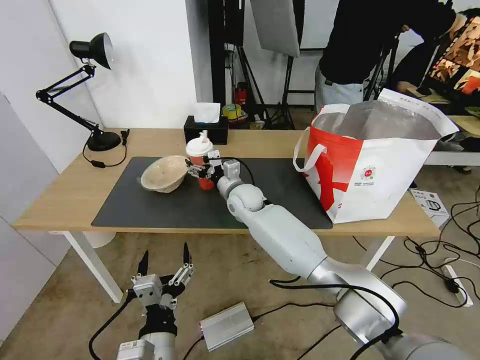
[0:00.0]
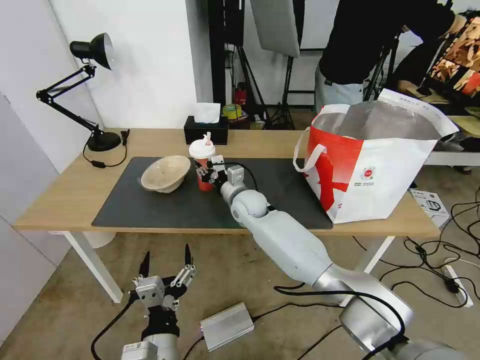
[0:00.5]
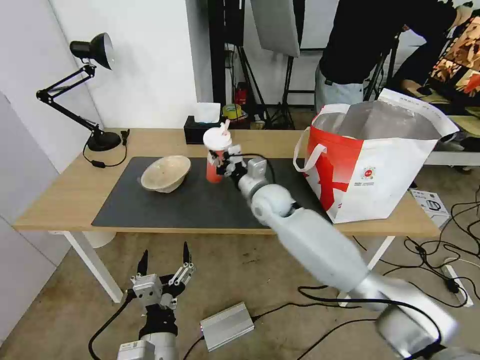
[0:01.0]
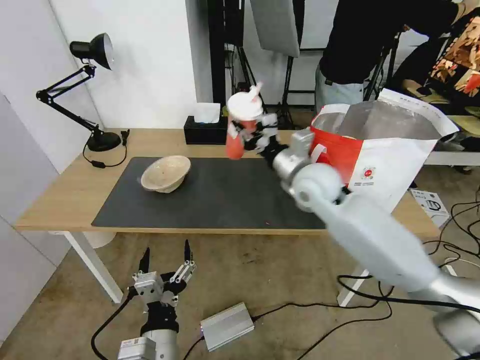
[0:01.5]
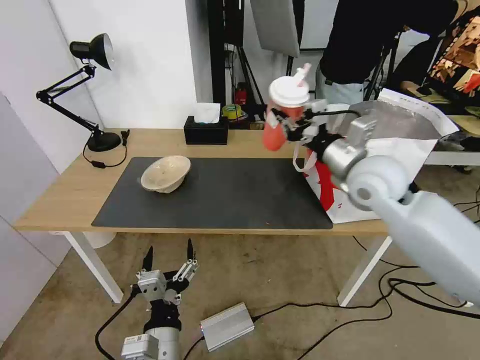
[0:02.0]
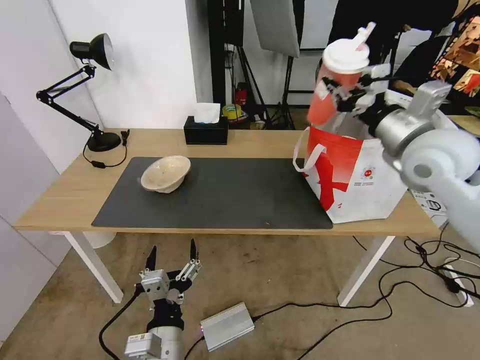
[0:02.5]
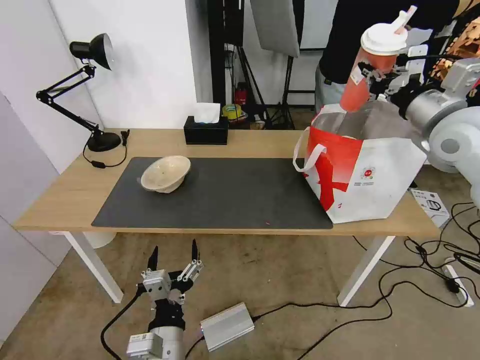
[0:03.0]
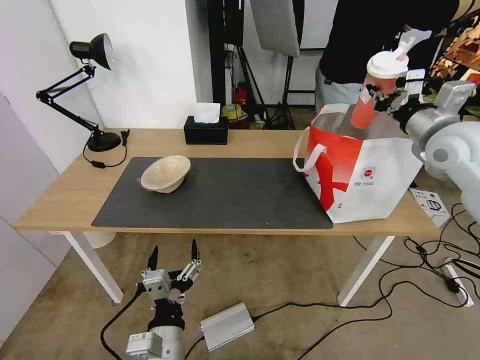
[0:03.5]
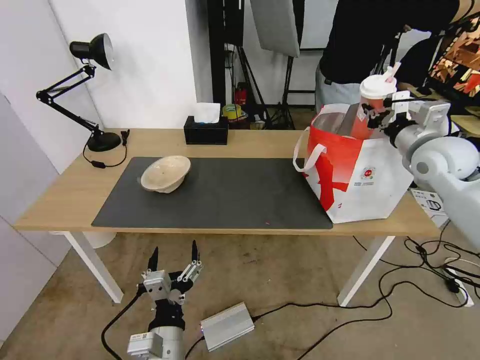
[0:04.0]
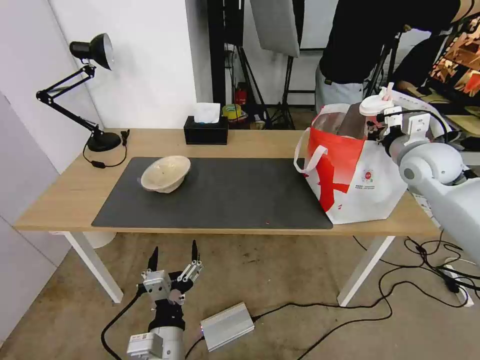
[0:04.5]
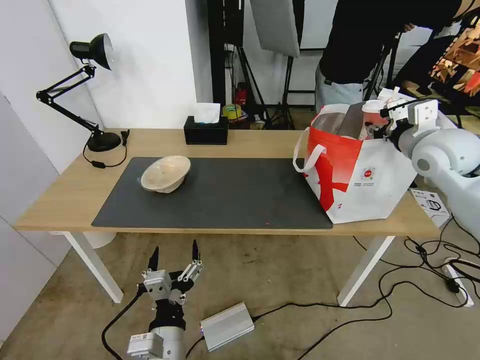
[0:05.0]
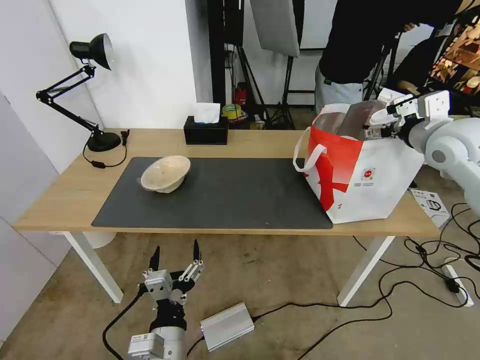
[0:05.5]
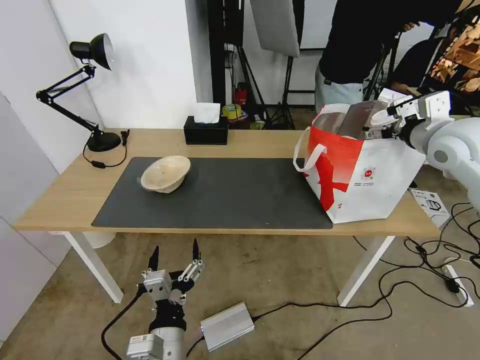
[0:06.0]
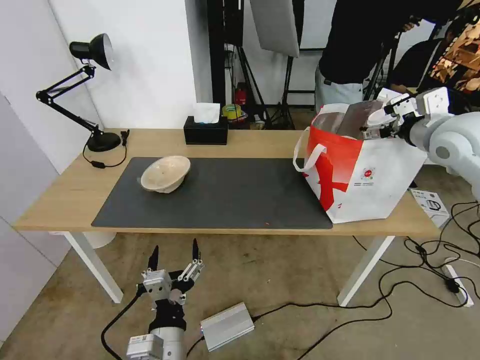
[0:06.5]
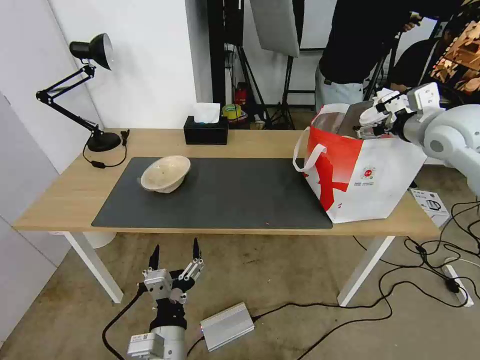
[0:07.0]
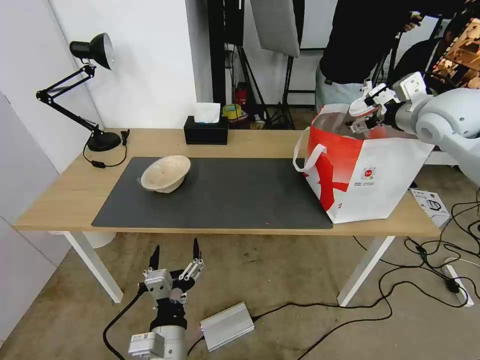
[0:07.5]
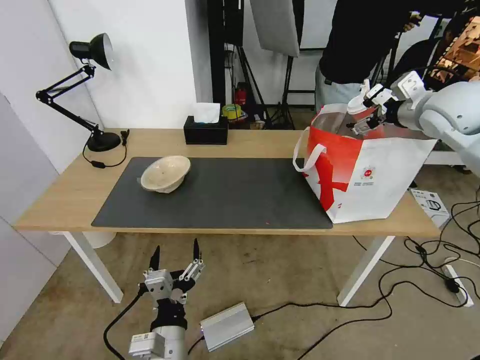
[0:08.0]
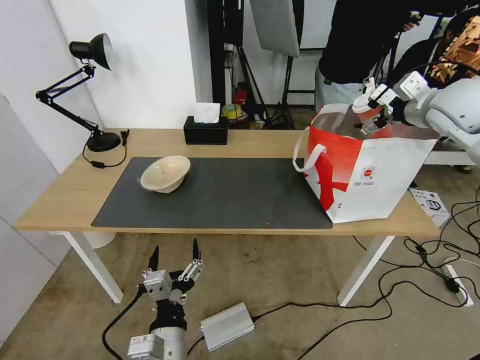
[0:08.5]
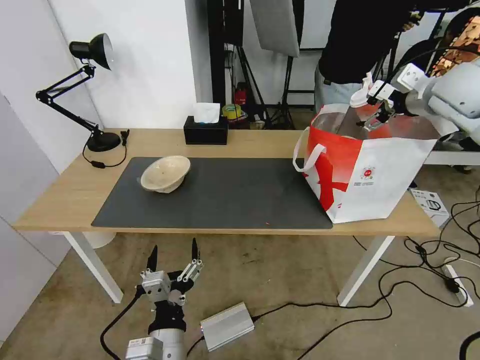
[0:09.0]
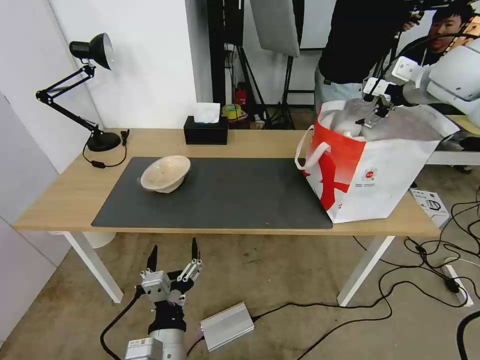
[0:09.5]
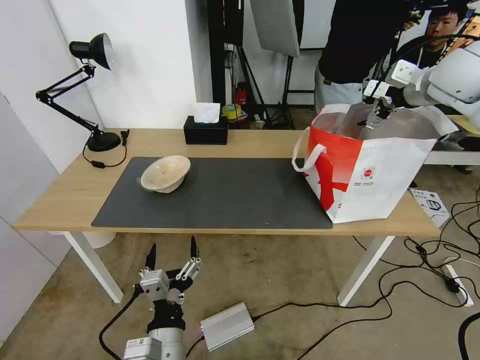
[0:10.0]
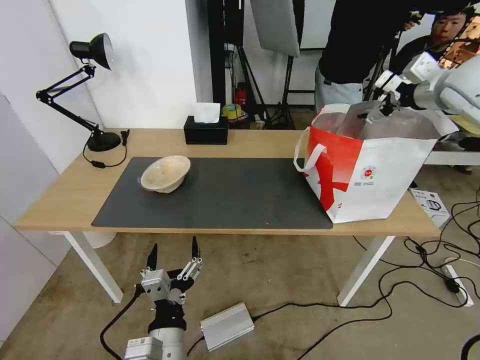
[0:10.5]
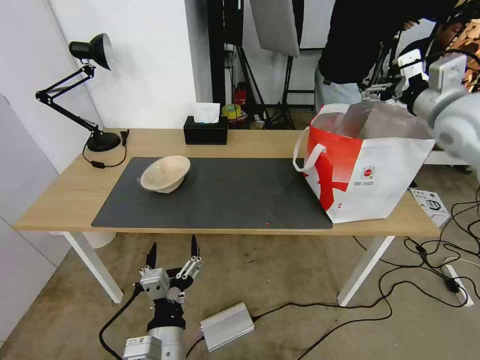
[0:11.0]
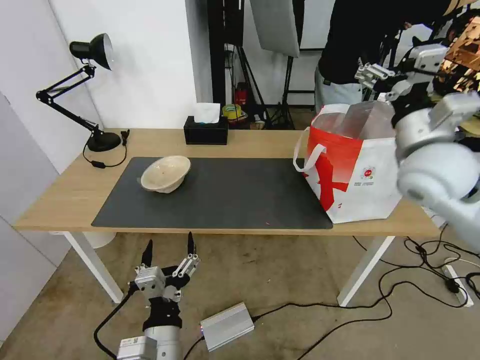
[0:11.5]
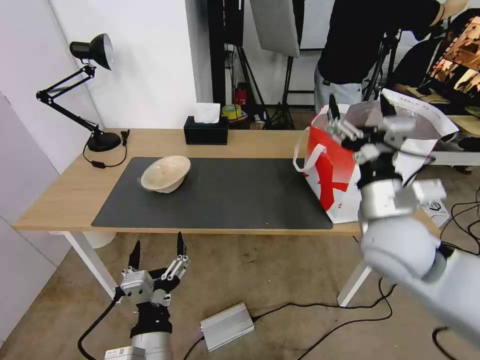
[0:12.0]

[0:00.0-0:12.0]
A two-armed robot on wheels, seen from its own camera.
Task of the whole recording: Pick up the trash from the table and place it into the takeout bag.
0:00.0 to 0:02.0: The right gripper heads to the right, upward and backward, covering roughly 30 cm, and closes its fingers.
0:02.0 to 0:04.0: The right gripper moves to the right, some 15 cm.
0:04.0 to 0:06.0: The right gripper heads upward, covering approximately 5 cm, and opens its fingers.
0:06.0 to 0:08.0: The right gripper travels forward by approximately 5 cm.
0:08.0 to 0:10.0: The right gripper moves some 5 cm.
0:10.0 to 0:12.0: The right gripper shifts roughly 35 cm backward, downward and to the left.

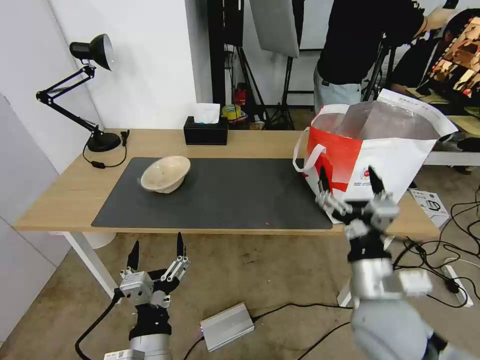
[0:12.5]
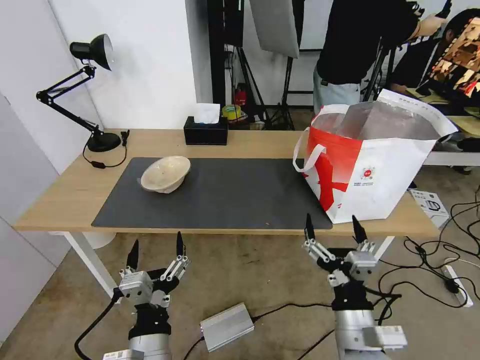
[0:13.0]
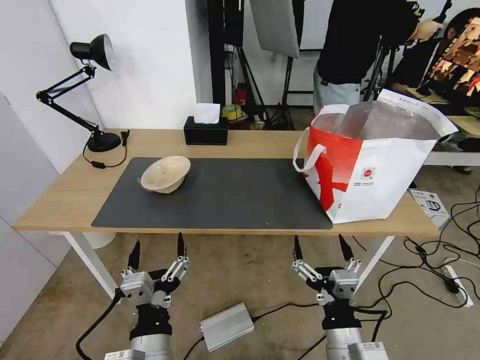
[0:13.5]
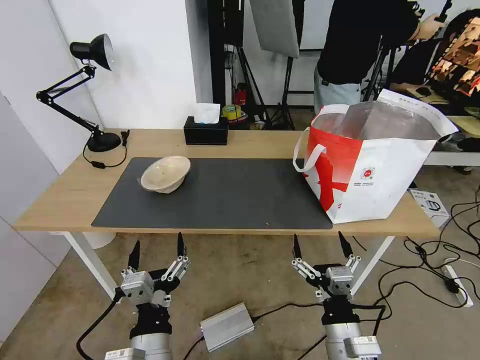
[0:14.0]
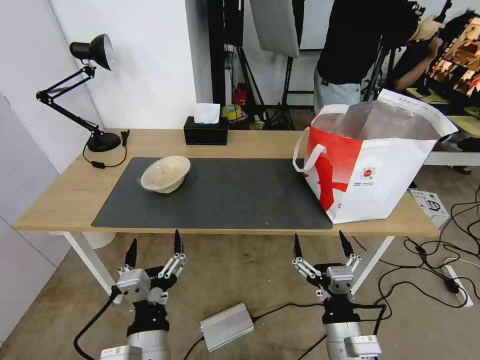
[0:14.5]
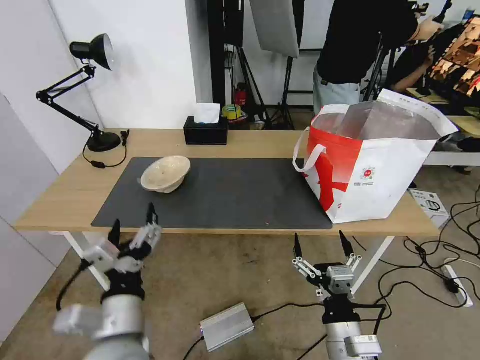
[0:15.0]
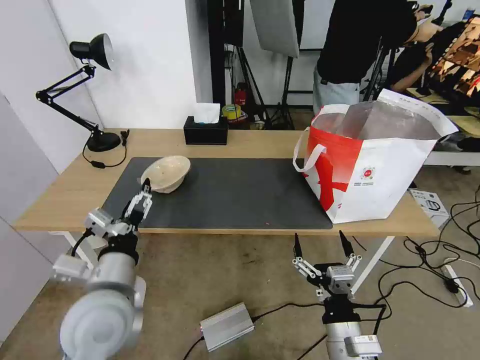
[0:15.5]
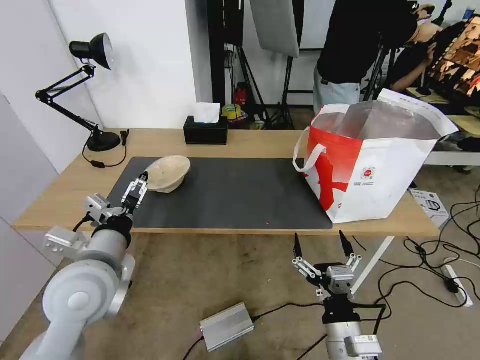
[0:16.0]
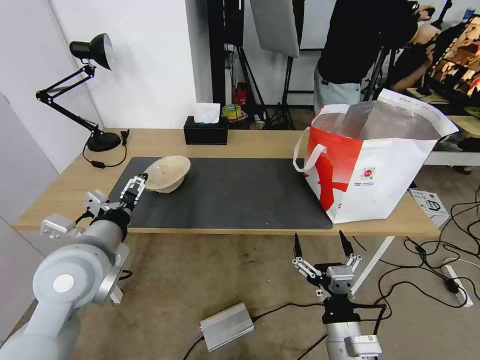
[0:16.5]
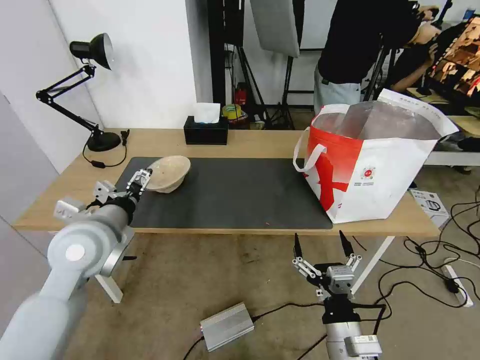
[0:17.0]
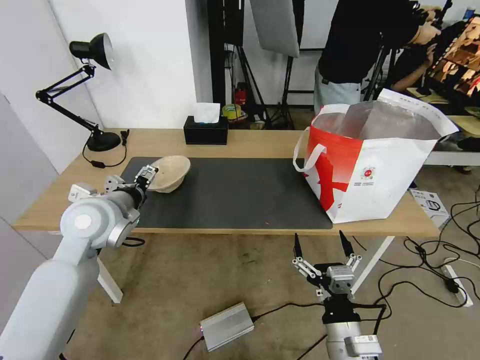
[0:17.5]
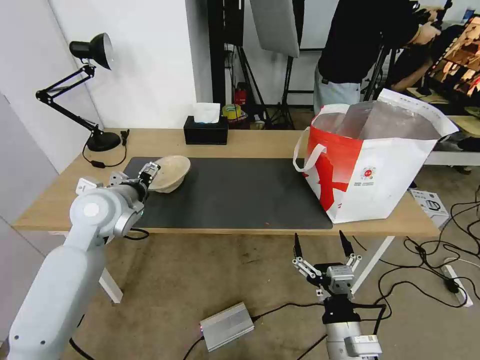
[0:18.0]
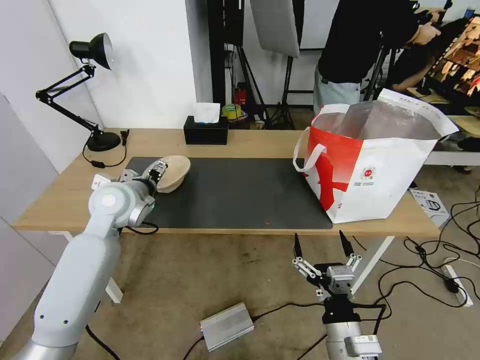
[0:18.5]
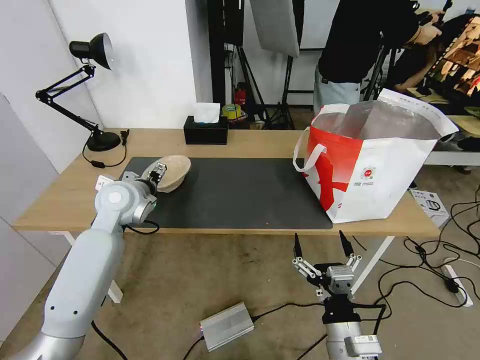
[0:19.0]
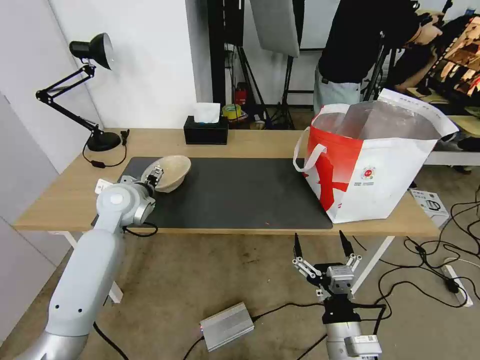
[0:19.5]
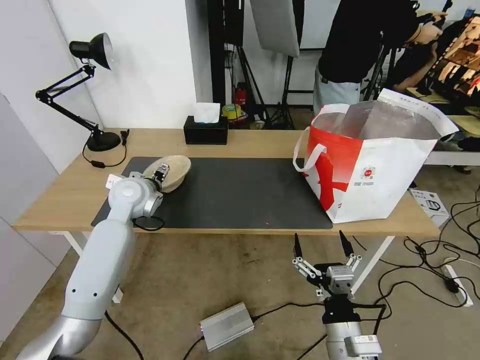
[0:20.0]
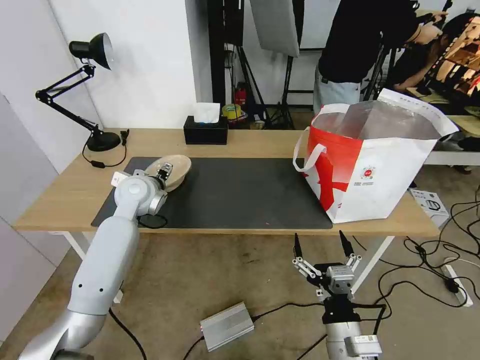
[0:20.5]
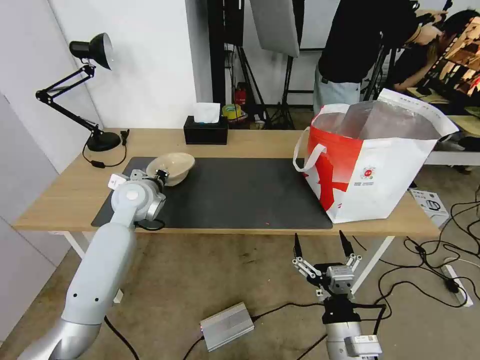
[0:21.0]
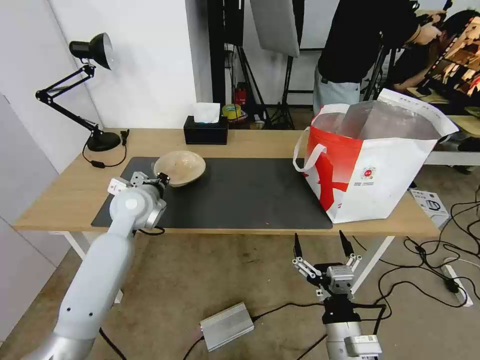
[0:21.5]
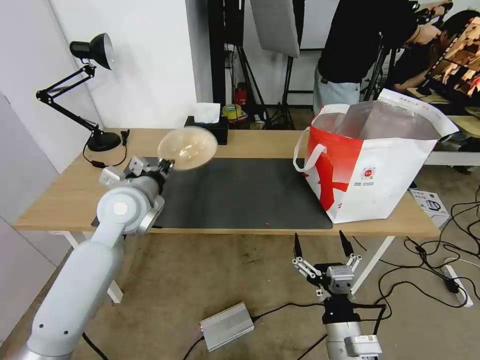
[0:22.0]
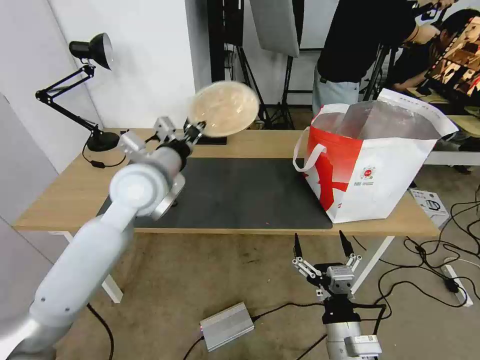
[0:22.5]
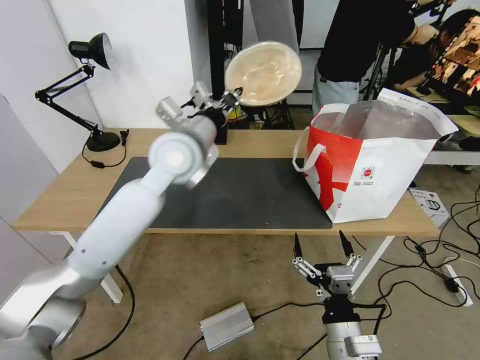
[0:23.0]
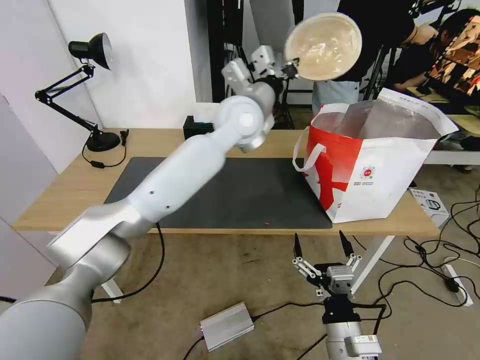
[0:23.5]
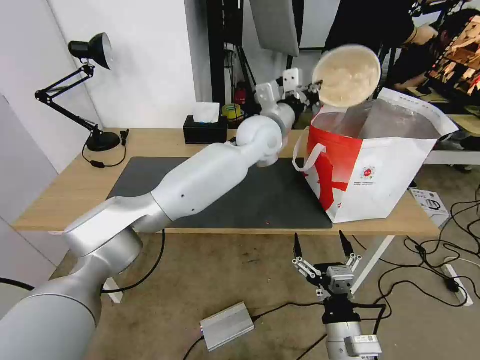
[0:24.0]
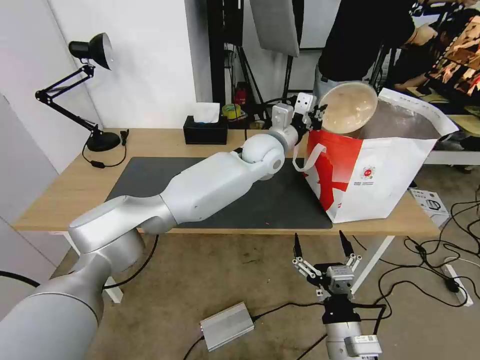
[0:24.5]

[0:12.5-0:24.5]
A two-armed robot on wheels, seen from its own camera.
Task of the whole recording: Pick up the trash from the table and place it into the takeout bag.
0:12.5 to 0:14.5: The right gripper goes about 10 cm downward and backward.
0:14.5 to 0:16.5: The left gripper shifts about 25 cm forward, upward and to the left.
0:16.5 to 0:18.5: The left gripper travels forward by about 15 cm.
0:18.5 to 0:20.5: The left gripper goes roughly 5 cm forward.
0:20.5 to 0:22.5: The left gripper shifts about 15 cm upward, backward and to the right, and closes.
0:22.5 to 0:24.5: The left gripper goes approximately 30 cm to the right and forward.

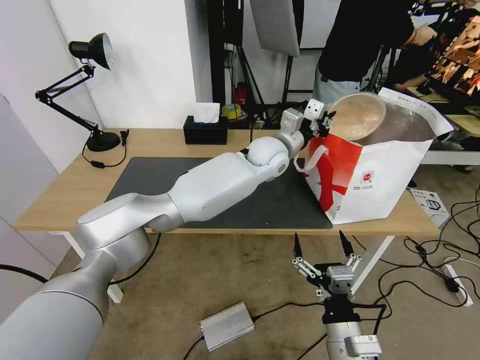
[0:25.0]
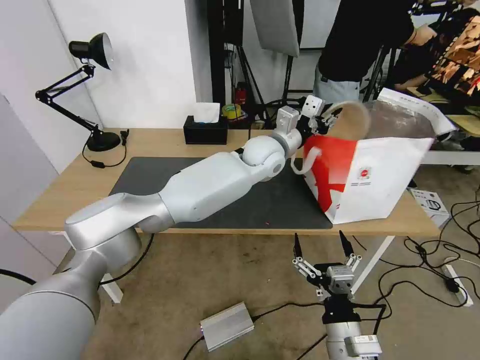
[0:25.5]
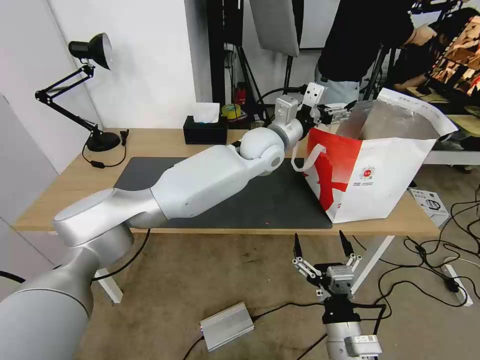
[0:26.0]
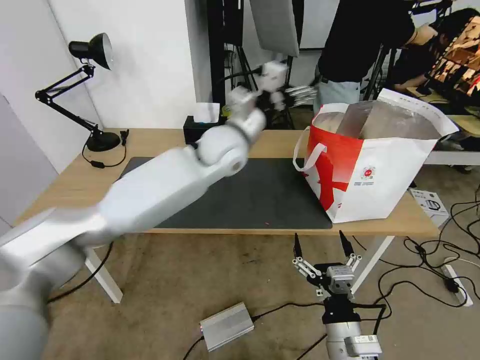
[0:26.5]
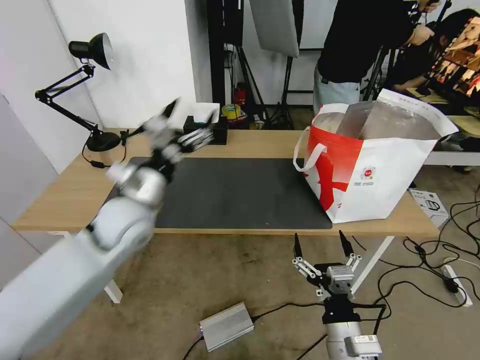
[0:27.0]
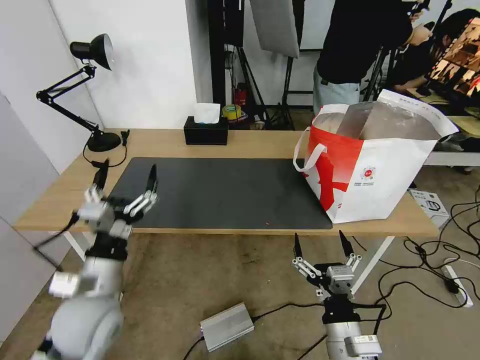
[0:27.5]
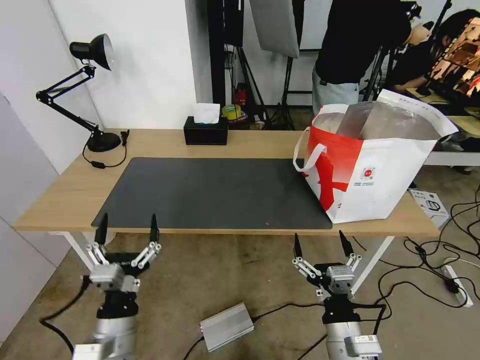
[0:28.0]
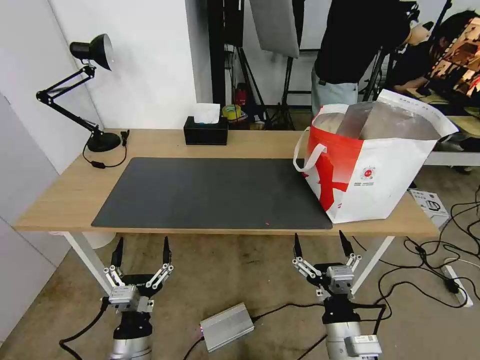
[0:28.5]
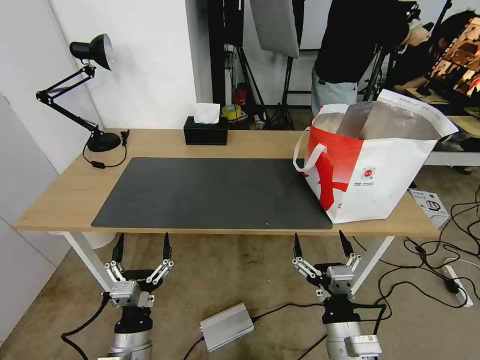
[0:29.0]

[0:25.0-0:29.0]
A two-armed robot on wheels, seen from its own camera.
Task of the whole recording: Pick up the trash from the table and place it into the takeout bag.
0:25.0 to 0:27.0: The left gripper goes roughly 35 cm to the left and backward, and opens.
0:27.0 to 0:29.0: The left gripper moves backward and downward, some 30 cm.
